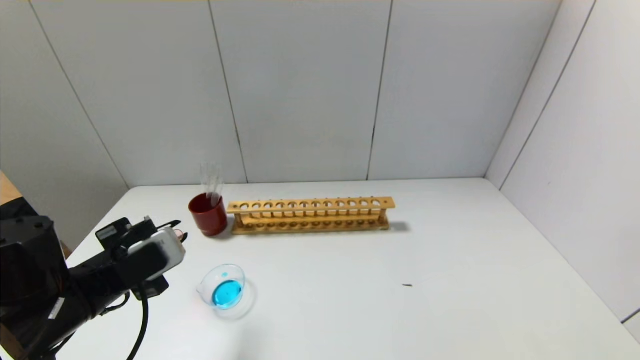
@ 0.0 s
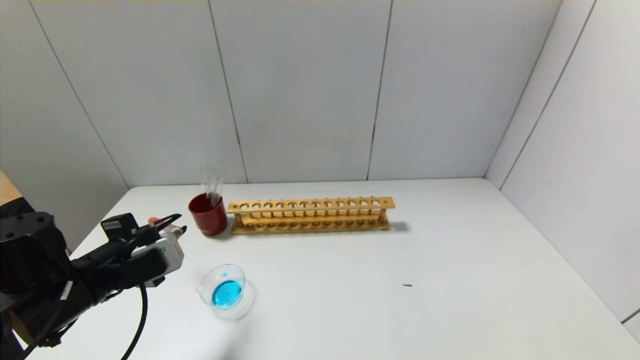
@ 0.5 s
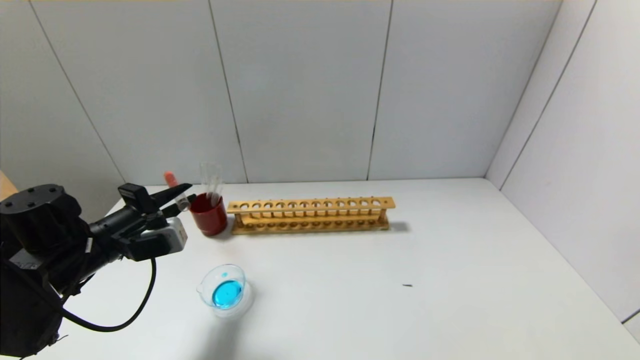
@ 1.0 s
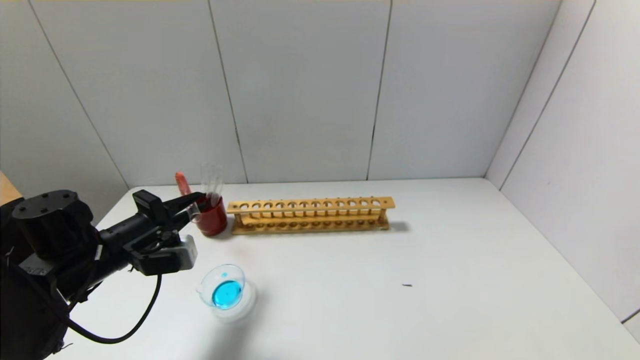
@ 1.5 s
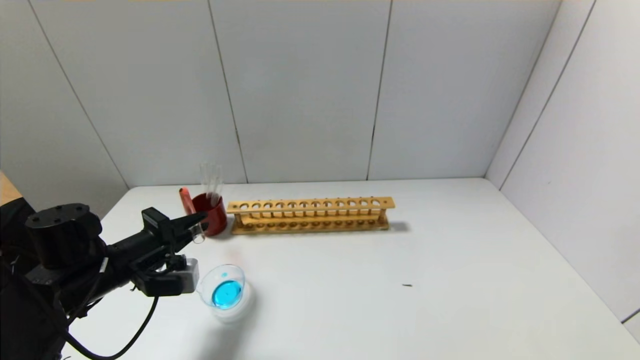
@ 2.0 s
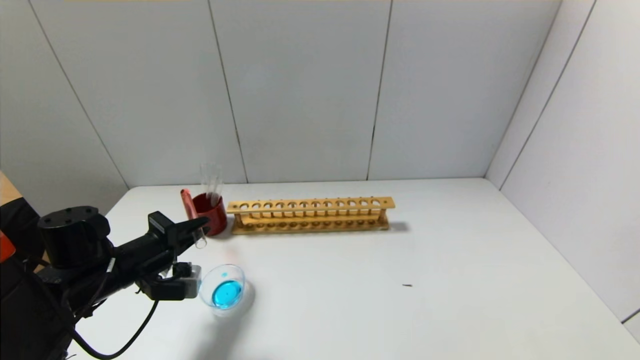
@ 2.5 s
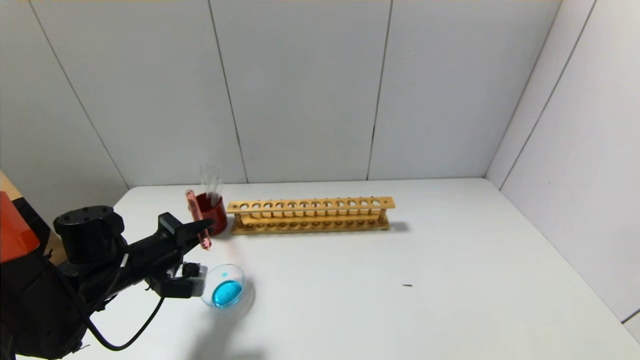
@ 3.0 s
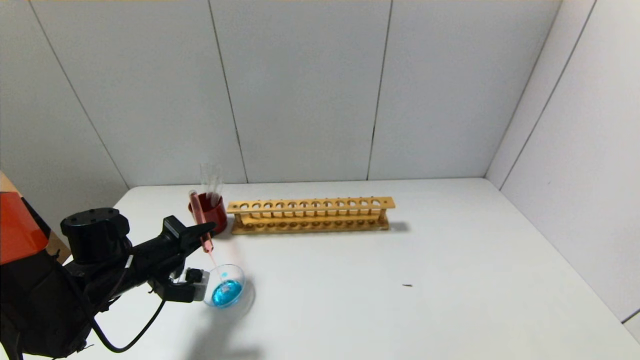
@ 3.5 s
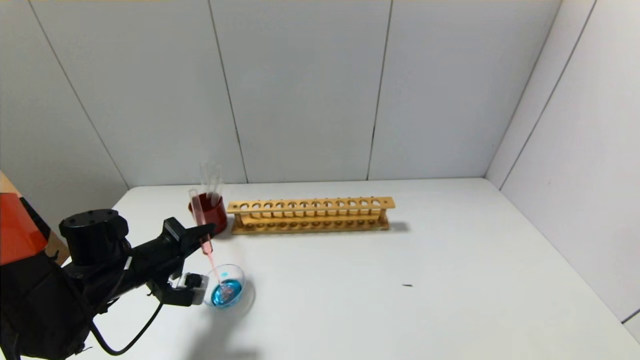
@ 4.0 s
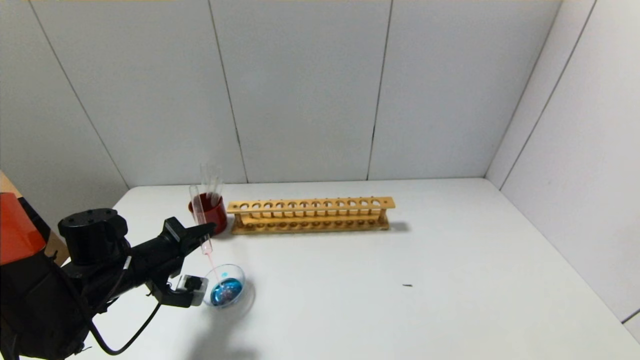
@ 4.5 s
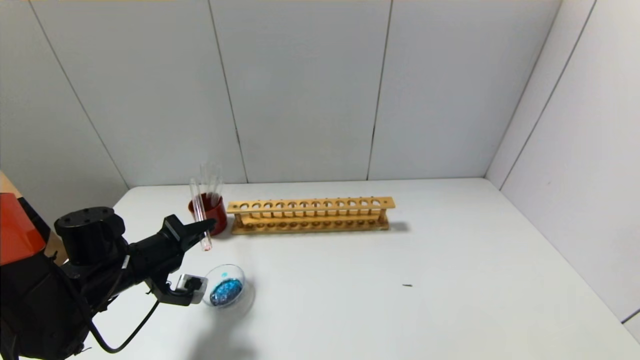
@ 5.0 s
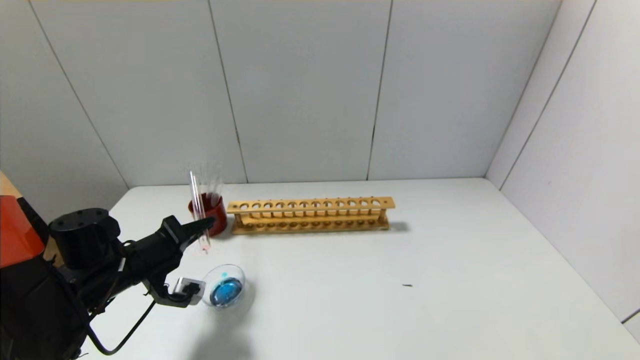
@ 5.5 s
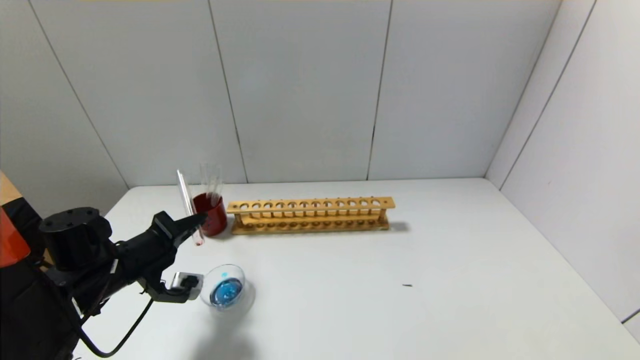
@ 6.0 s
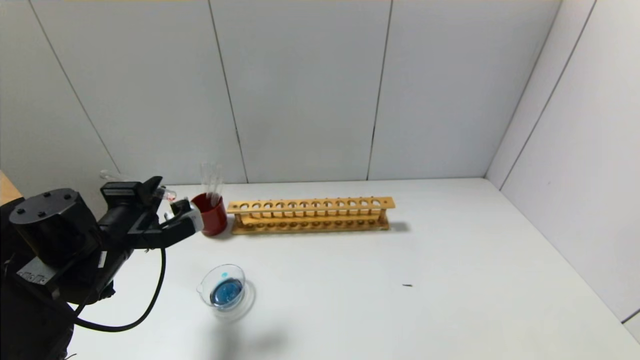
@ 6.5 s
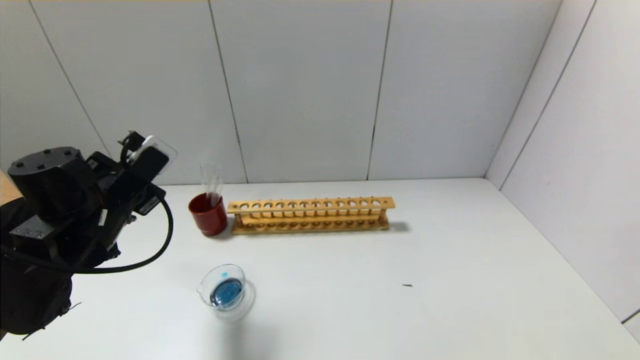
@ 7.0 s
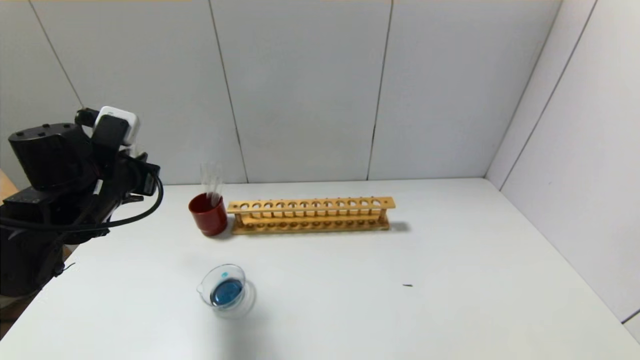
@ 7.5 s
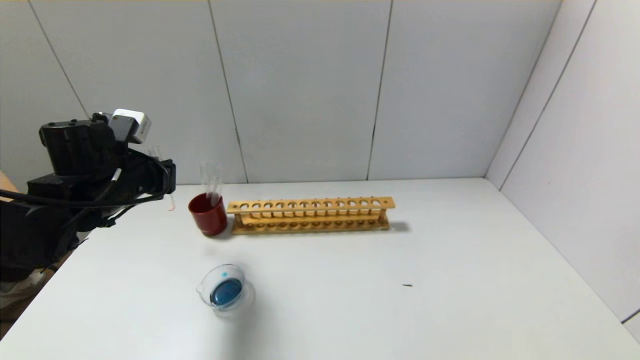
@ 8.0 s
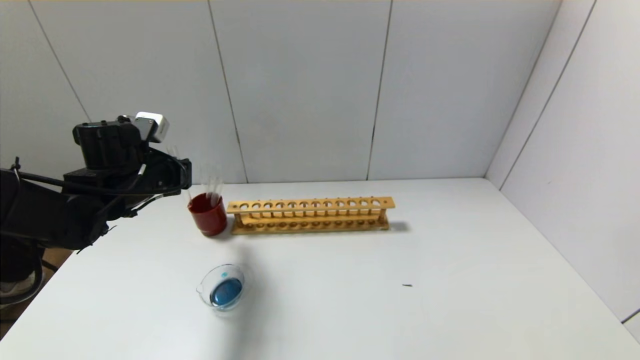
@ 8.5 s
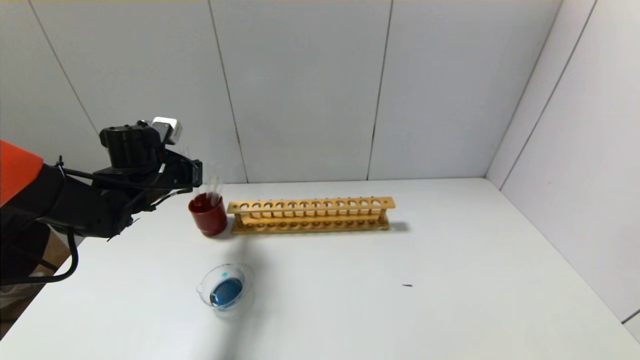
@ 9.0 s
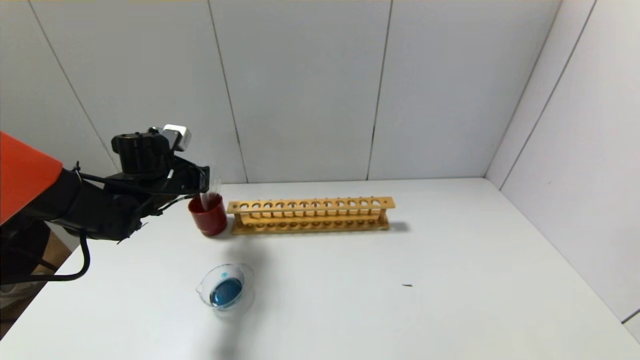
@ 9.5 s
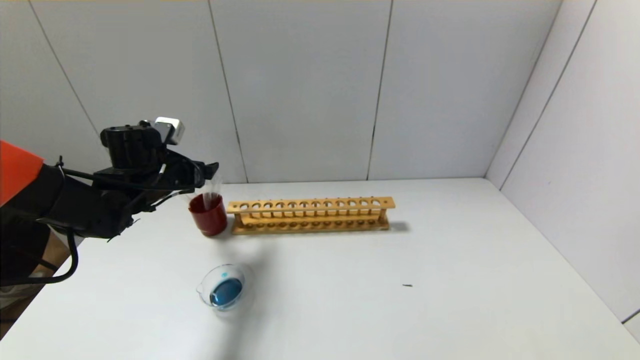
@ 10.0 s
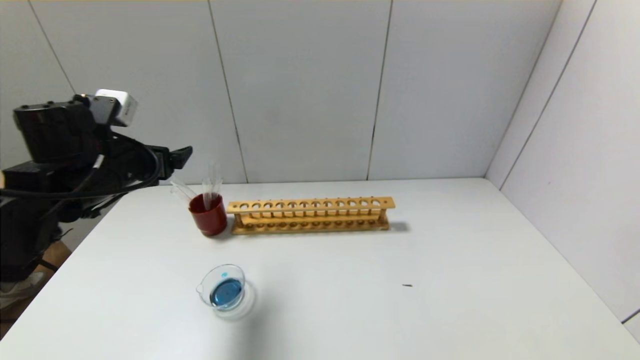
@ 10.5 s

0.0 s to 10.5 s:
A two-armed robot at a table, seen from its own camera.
Step, 0.0 to 6.0 s: Pour the red reagent into the graduated cylinder with the left gripper.
Step, 6.5 to 9.5 s: Place the test tube into the brown cup with the left gripper.
0.0 to 2.0 s: The left gripper heads forward, covering some 5 cm.
2.0 to 4.0 s: The grippers stay close to where they were, moving slightly.
4.0 to 6.5 s: The left gripper heads upward, covering some 5 cm.
6.5 to 8.5 s: The left gripper shifts about 10 cm forward.
8.5 to 10.5 s: The left gripper travels backward by some 5 cm, and opens up.

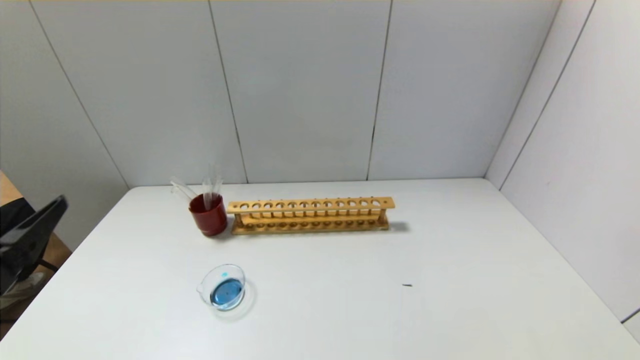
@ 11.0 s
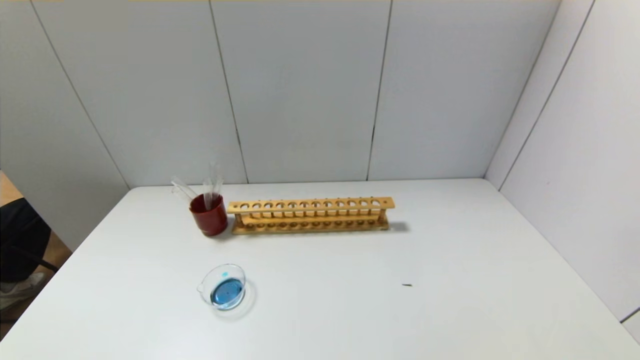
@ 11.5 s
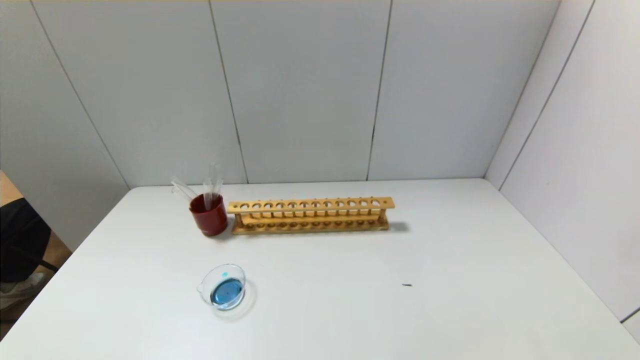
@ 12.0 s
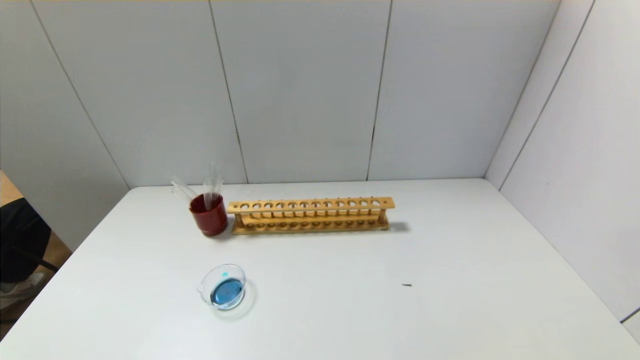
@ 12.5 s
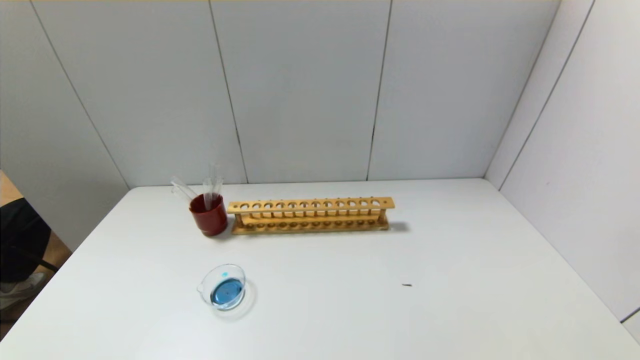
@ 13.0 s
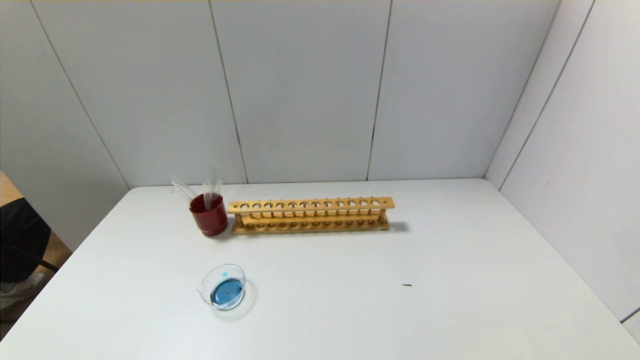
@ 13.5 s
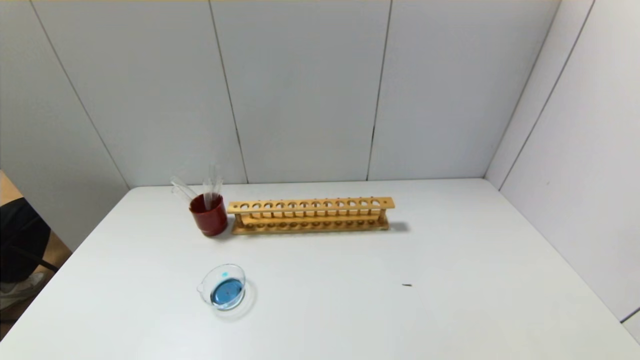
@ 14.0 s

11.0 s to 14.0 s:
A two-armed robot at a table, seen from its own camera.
12.5 to 14.0 s: Both grippers stay about where they are.

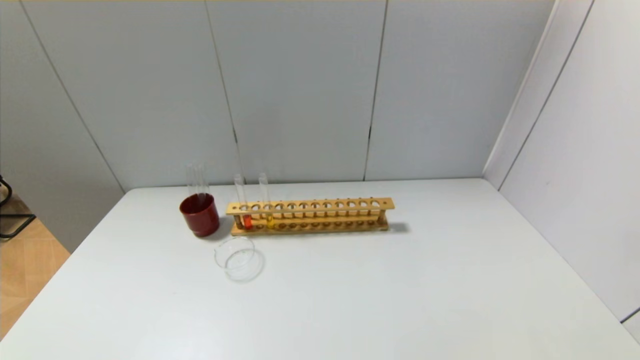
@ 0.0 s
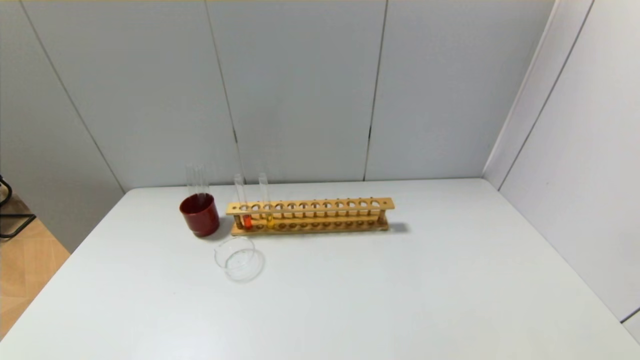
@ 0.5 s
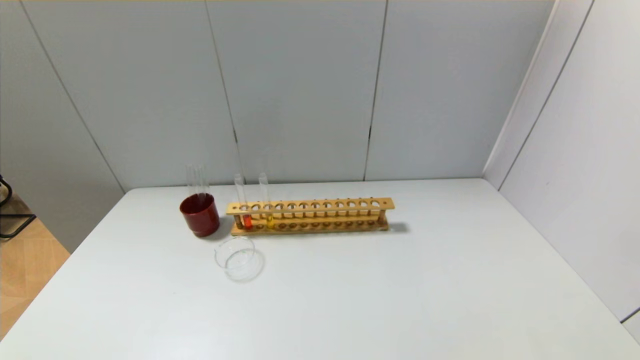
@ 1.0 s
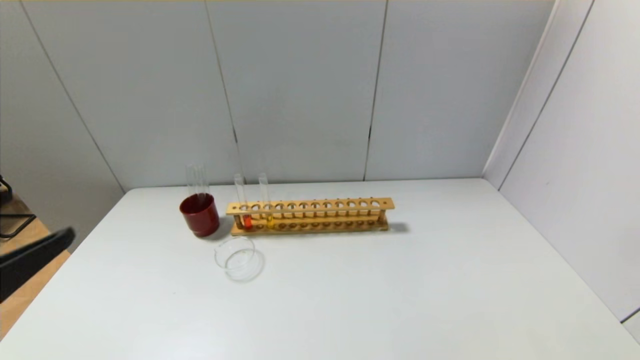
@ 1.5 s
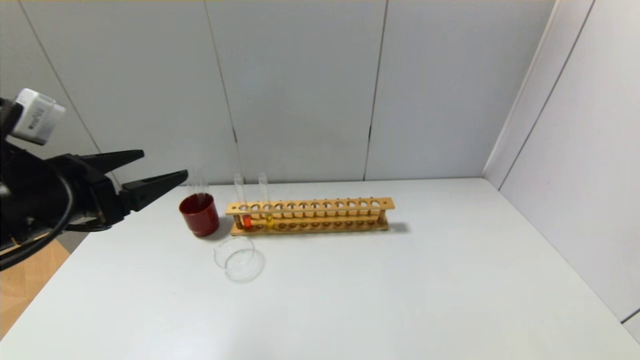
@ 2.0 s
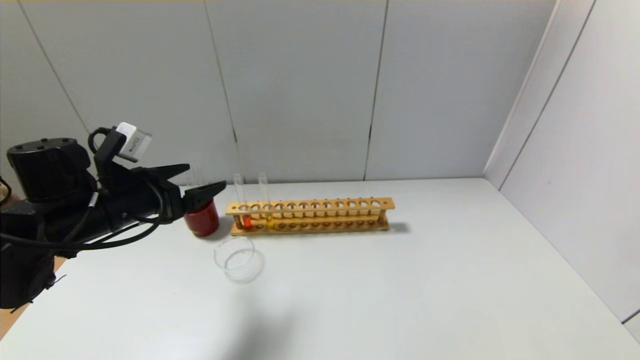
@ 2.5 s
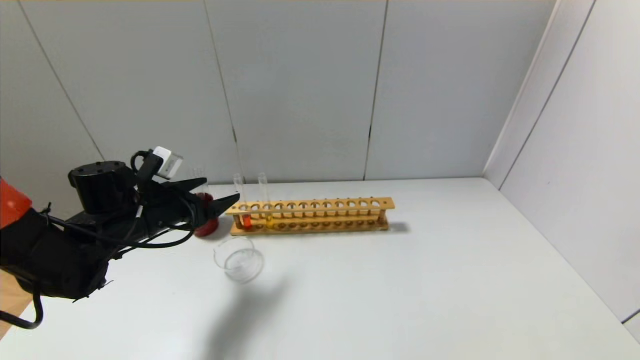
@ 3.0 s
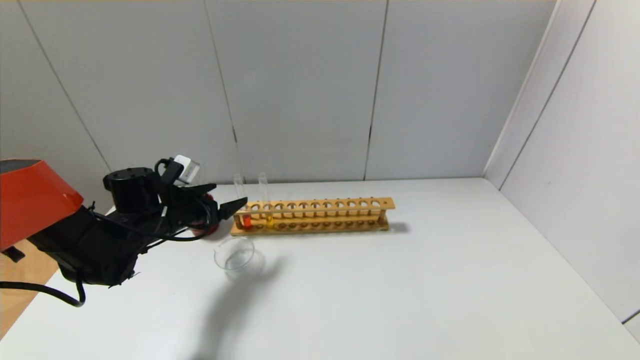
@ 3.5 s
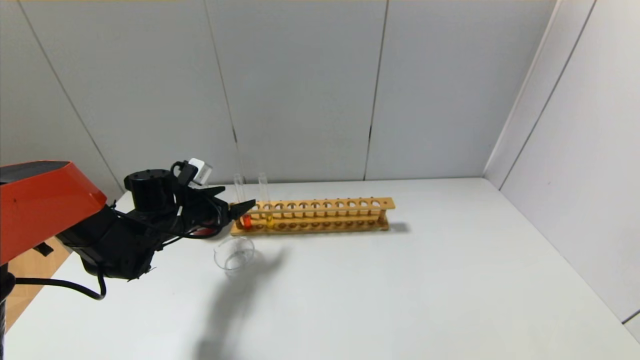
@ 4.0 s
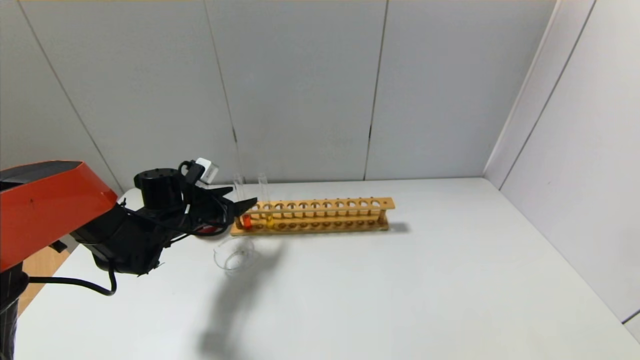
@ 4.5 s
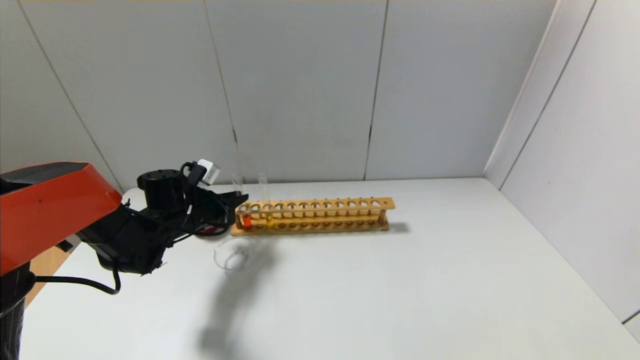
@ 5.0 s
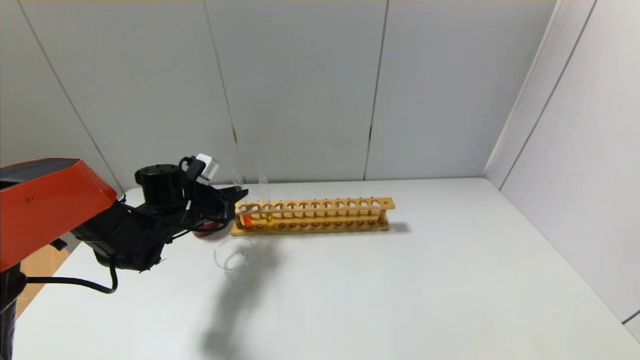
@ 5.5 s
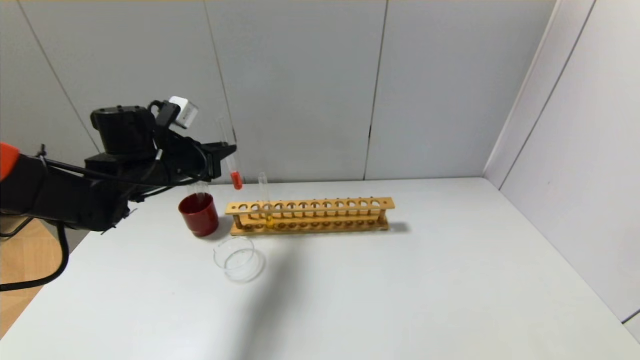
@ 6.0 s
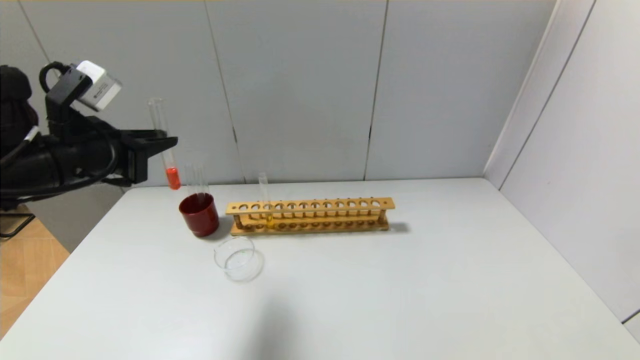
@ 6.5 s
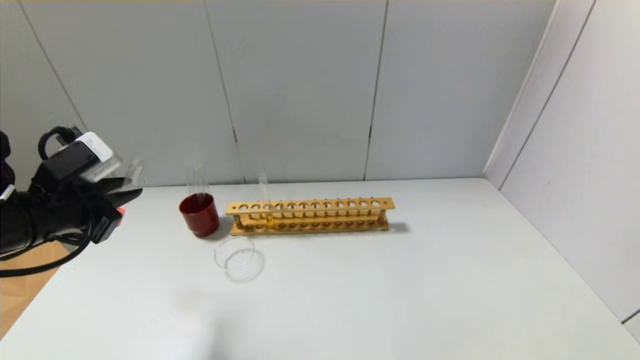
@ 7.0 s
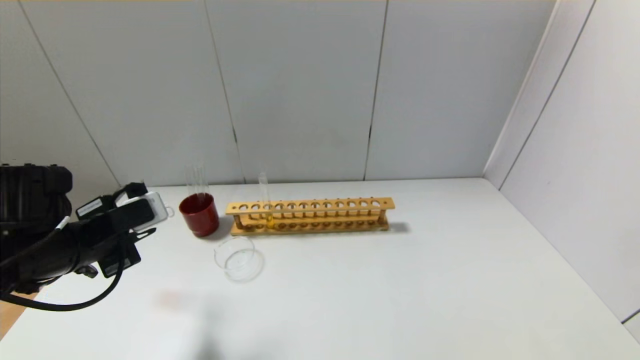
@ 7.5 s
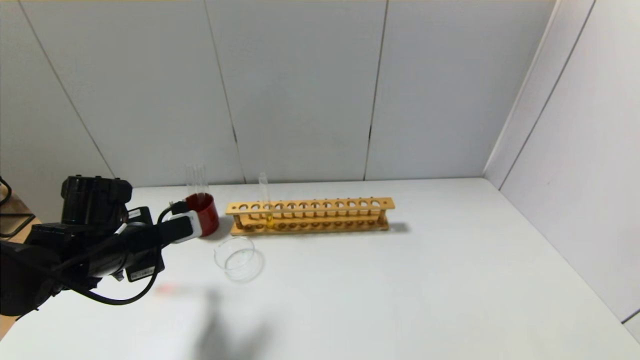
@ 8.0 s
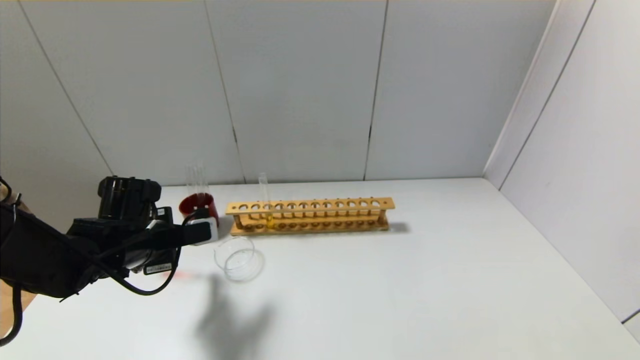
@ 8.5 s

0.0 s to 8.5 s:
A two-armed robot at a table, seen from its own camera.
Step, 0.0 to 5.0 s: Grasp the red reagent with the left gripper.
0.0 to 2.0 s: The left gripper shifts some 30 cm forward and upward.
2.0 to 4.0 s: The left gripper travels forward and downward by some 25 cm.
4.0 to 6.5 s: The left gripper shifts about 20 cm upward and backward, and closes.
6.5 to 8.5 s: The left gripper is displaced downward by roughly 15 cm.
